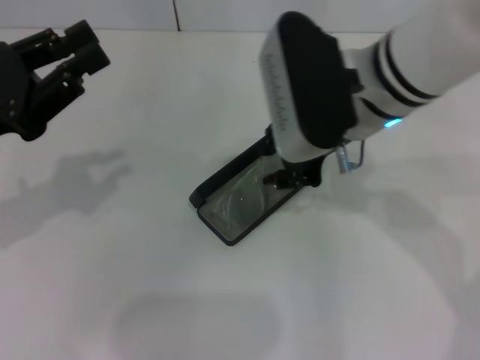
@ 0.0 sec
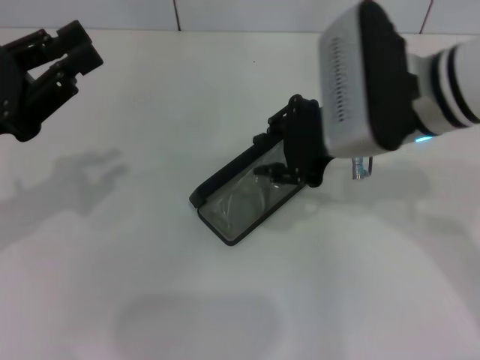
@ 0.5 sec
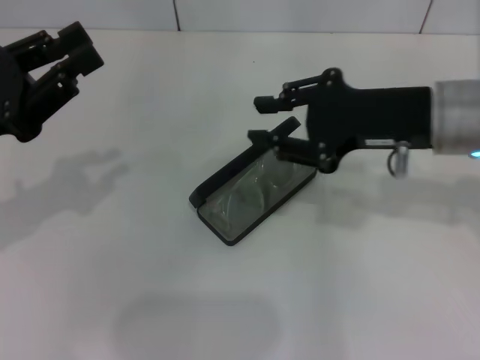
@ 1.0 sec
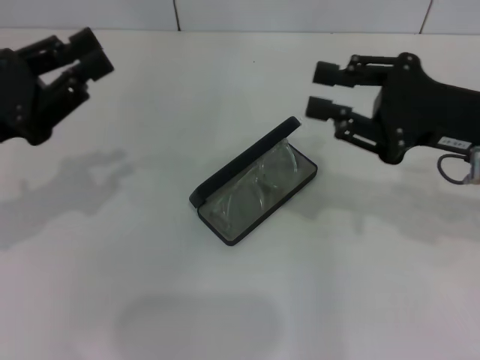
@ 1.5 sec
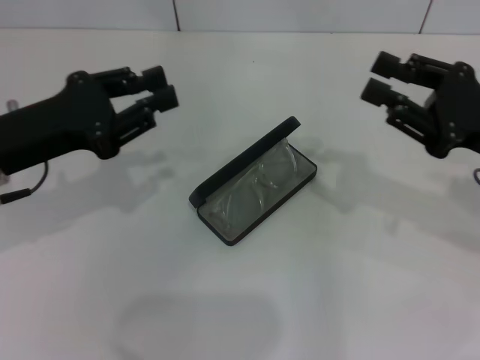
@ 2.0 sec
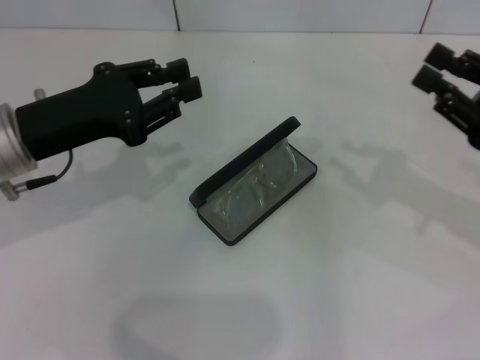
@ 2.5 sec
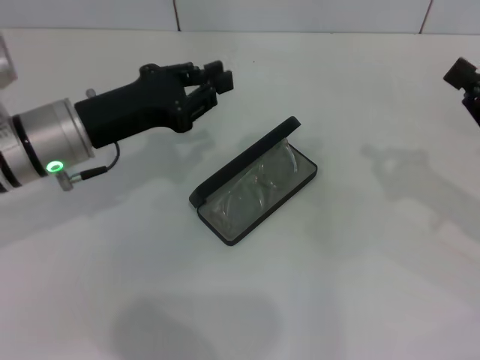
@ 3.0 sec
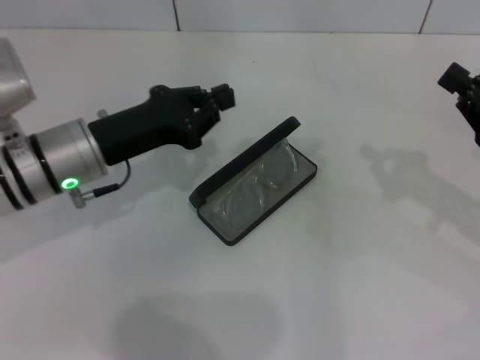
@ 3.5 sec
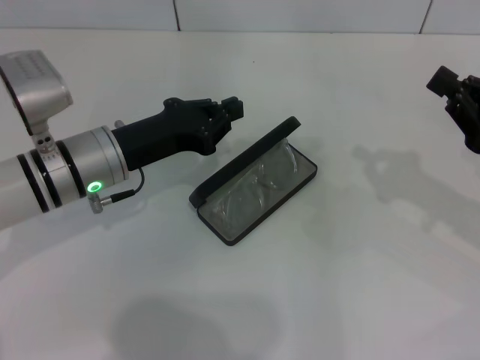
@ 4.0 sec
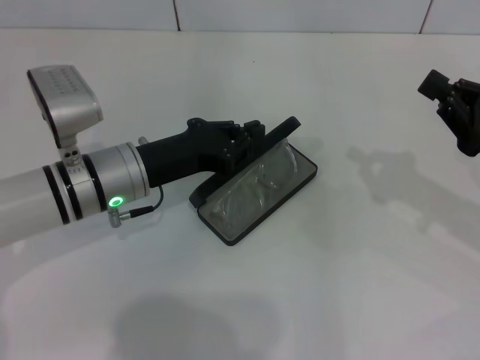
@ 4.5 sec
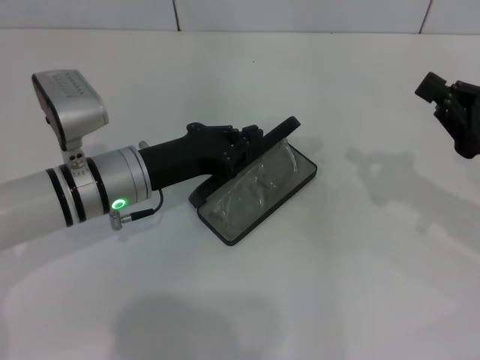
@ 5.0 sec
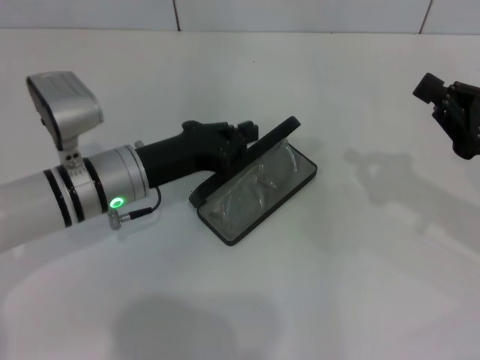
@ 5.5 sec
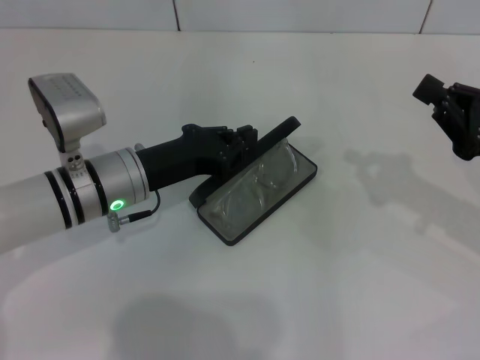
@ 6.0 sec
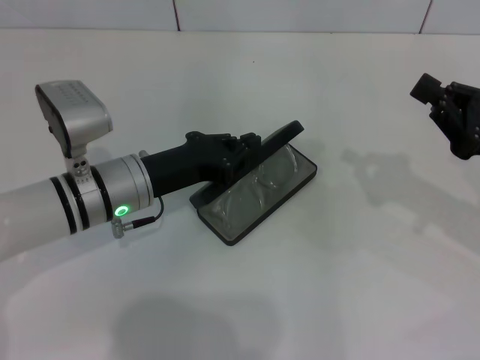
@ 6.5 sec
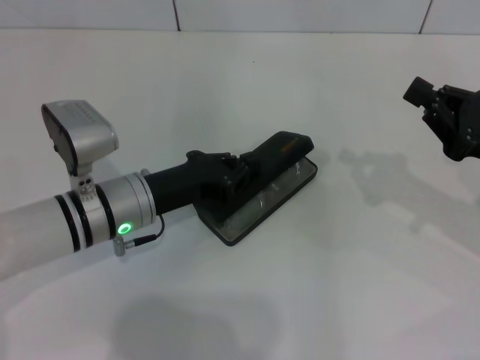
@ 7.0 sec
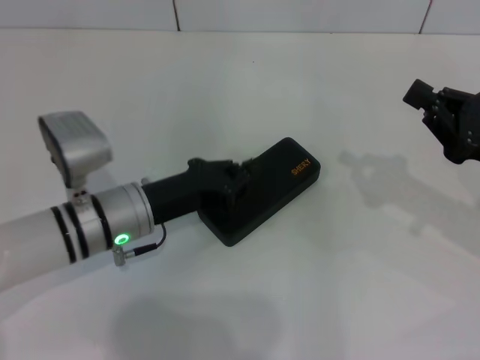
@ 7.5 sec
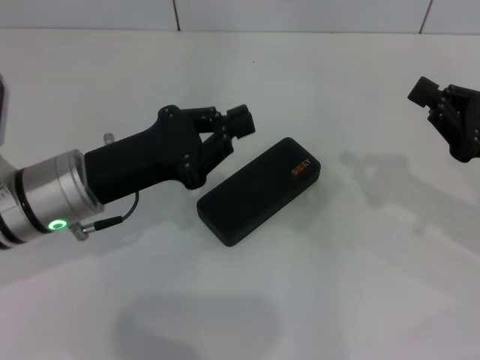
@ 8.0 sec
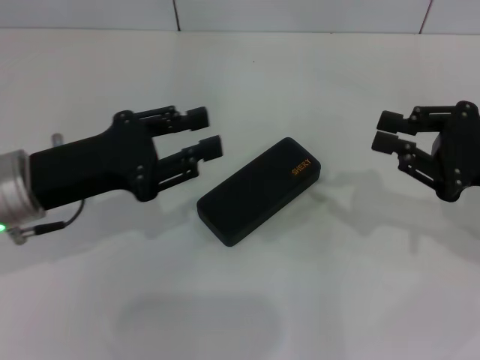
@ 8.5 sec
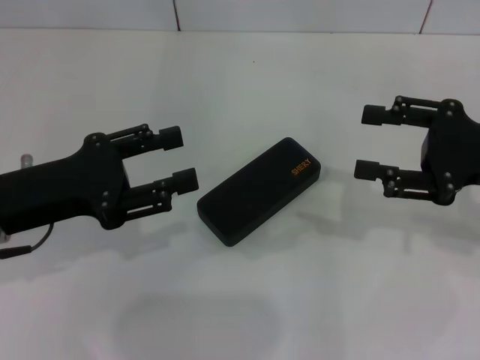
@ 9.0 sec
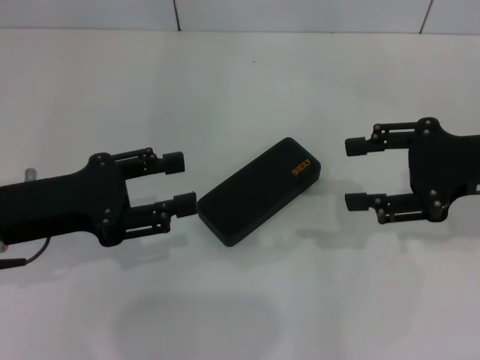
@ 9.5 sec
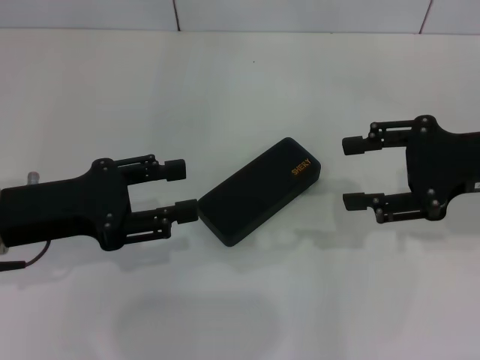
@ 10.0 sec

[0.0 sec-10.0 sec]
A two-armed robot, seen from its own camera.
Step, 0.0 sec to 7.0 sec: Close the glasses case with your left hand.
0.0 sec to 2.0 sec: The right gripper shifts approximately 20 cm to the right.
2.0 sec to 4.0 sec: The left gripper goes roughly 10 cm to the right and downward. The right gripper shifts by about 5 cm, and closes up.
4.0 sec to 6.0 sec: The grippers move only a little.
6.0 sec to 8.0 sec: The left gripper shifts by approximately 5 cm.
8.0 sec to 10.0 sec: The right gripper moves upward, some 5 cm, and opens. The left gripper heads to the left, covering some 5 cm, and opens its fingers.
